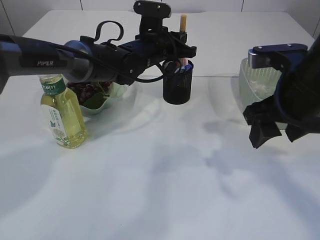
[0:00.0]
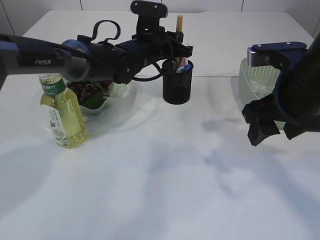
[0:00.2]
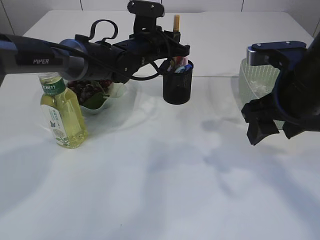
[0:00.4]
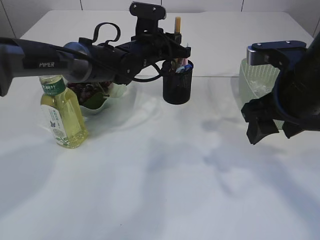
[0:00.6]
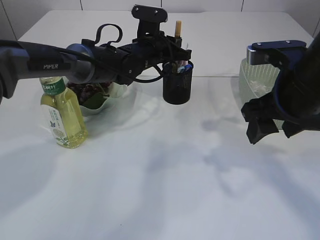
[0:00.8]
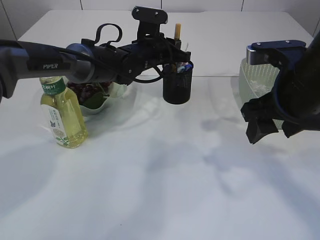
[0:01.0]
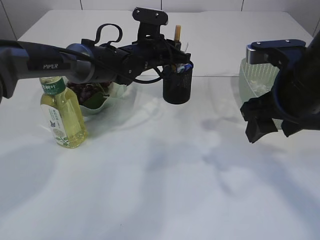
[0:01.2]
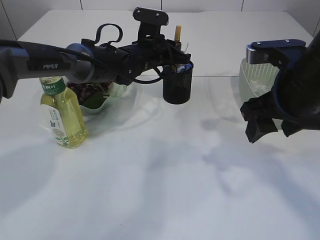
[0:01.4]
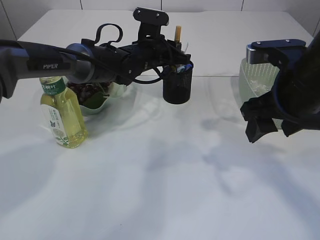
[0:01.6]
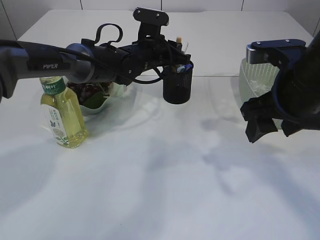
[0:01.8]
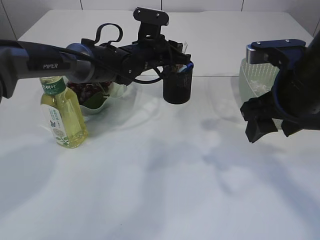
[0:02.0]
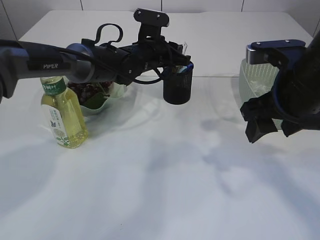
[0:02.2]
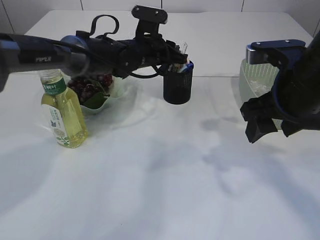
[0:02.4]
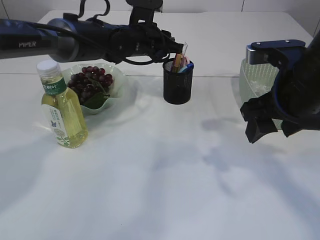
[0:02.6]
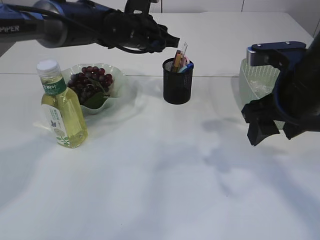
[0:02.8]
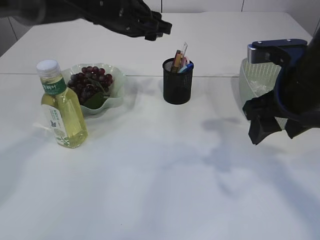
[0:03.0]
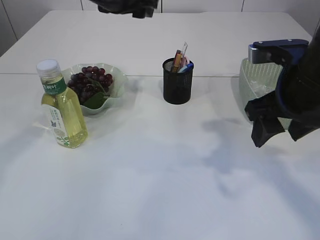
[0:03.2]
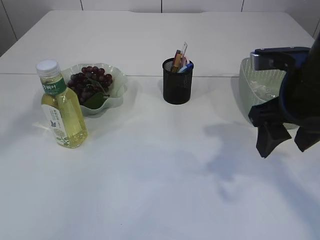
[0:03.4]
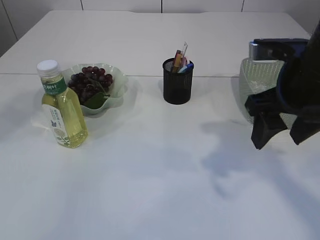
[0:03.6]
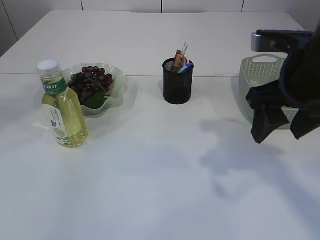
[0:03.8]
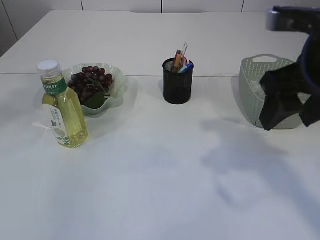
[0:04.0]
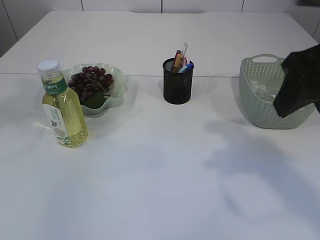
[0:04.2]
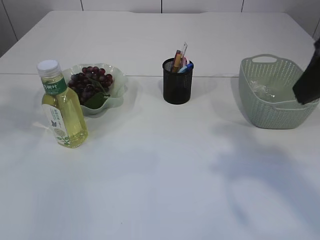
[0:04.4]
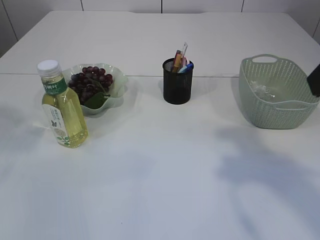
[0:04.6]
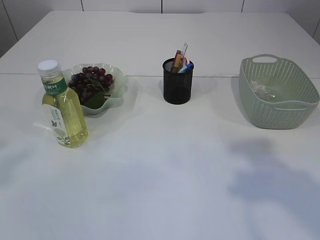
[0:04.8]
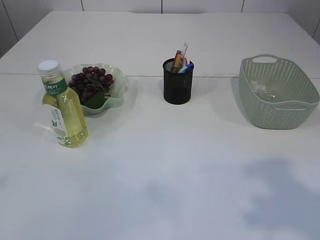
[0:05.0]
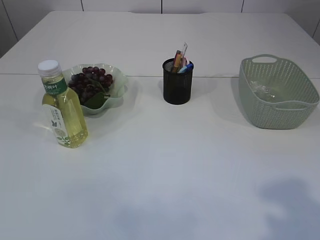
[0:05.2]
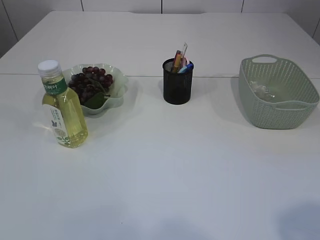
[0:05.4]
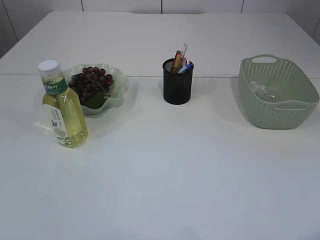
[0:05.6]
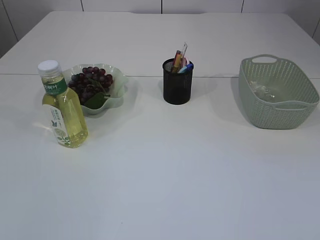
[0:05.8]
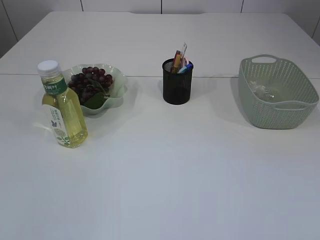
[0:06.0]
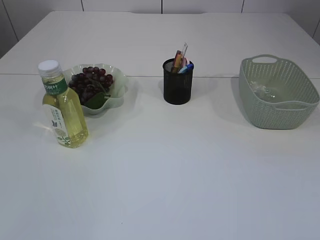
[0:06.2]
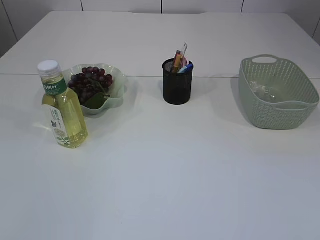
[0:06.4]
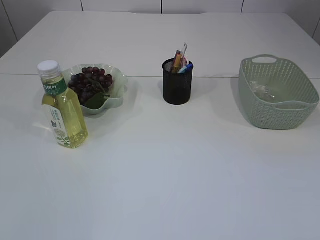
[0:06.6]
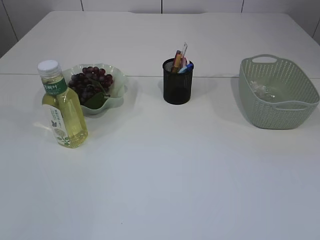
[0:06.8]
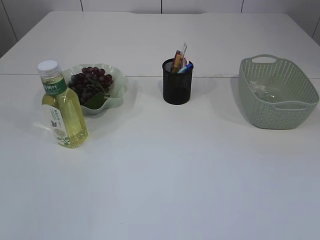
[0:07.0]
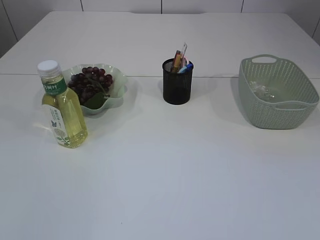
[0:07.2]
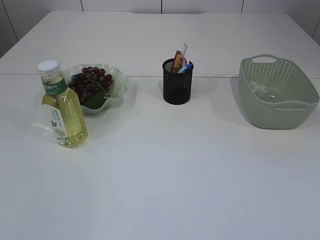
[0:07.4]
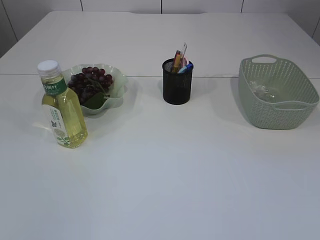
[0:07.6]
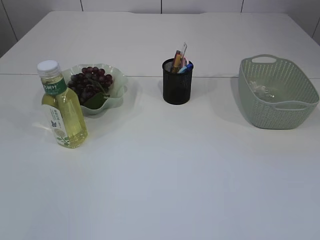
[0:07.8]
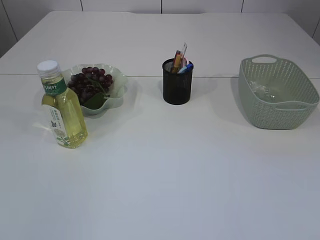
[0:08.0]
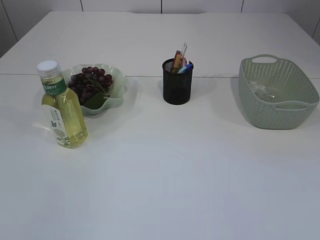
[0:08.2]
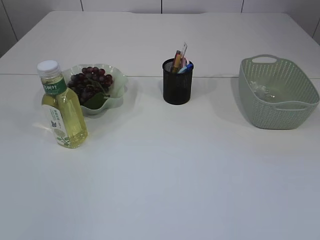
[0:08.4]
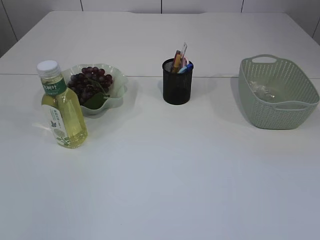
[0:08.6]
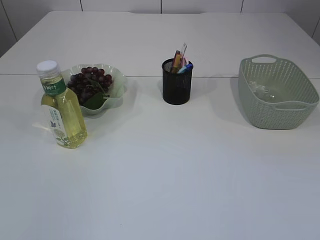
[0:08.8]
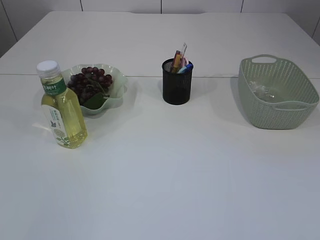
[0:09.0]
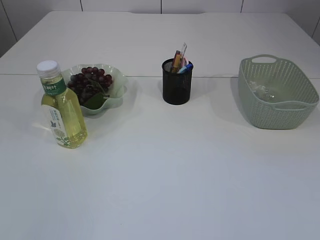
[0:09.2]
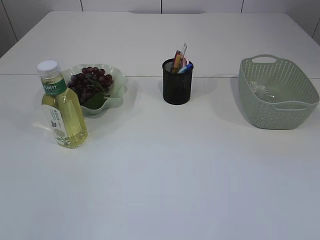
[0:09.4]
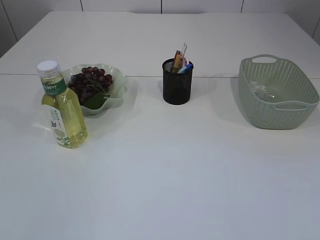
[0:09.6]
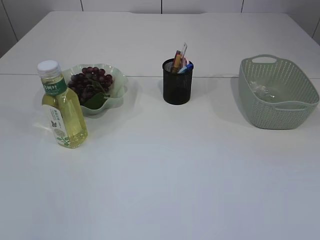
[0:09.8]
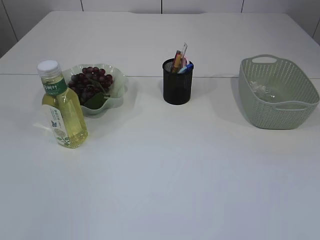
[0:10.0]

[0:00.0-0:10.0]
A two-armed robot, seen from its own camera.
Step, 0:00.0 to 0:02.6: place the yellow glue into the pen holder.
0:00.0 to 0:01.4: The grippers make only small movements.
0:01.4 to 0:02.8: The left gripper is displaced upward by roughly 5 cm.
0:02.8 to 0:04.2: The left gripper moves upward, backward and to the left, roughly 35 cm, and opens its fingers, while the right gripper travels upward and backward by approximately 10 cm.
0:04.2 to 0:05.8: The right gripper moves backward, approximately 25 cm.
0:08.6 to 0:10.0: Neither gripper changes place.

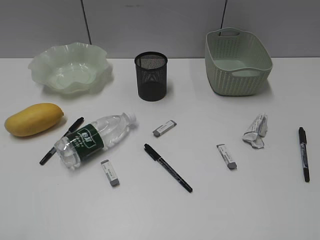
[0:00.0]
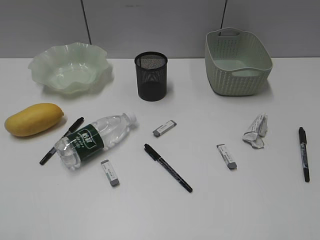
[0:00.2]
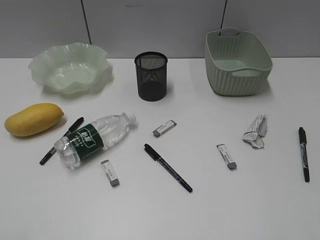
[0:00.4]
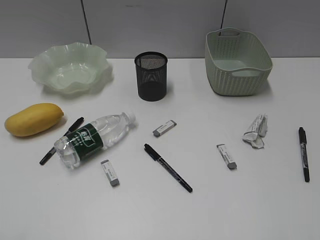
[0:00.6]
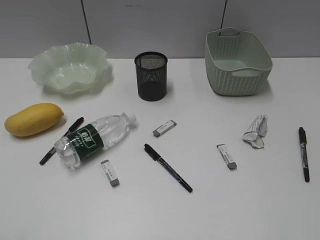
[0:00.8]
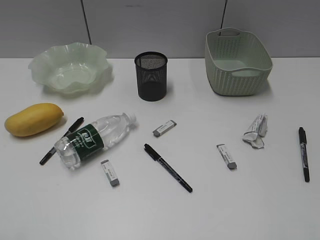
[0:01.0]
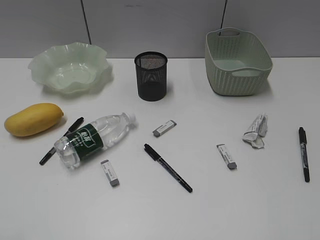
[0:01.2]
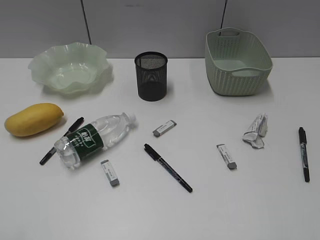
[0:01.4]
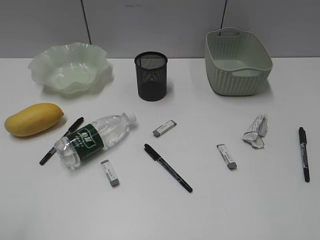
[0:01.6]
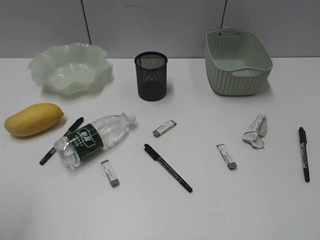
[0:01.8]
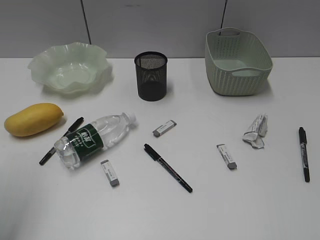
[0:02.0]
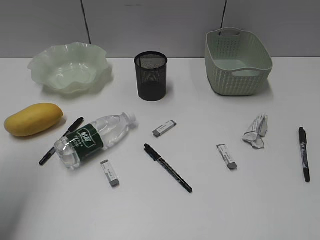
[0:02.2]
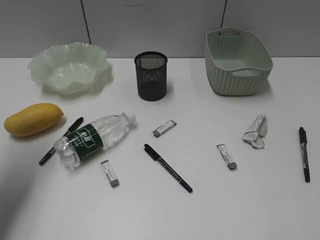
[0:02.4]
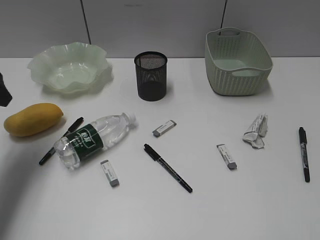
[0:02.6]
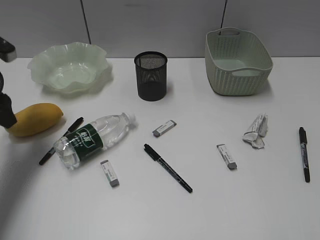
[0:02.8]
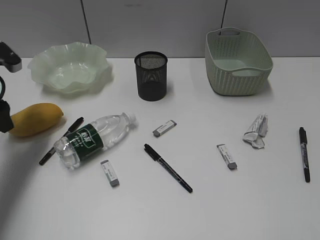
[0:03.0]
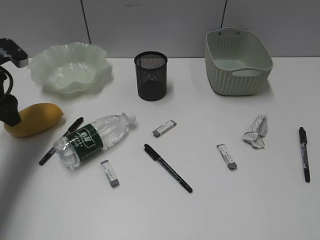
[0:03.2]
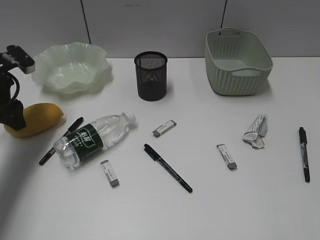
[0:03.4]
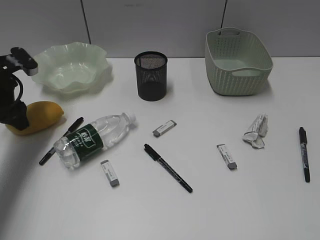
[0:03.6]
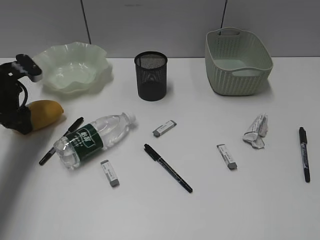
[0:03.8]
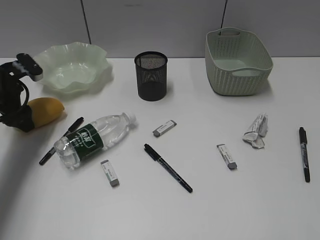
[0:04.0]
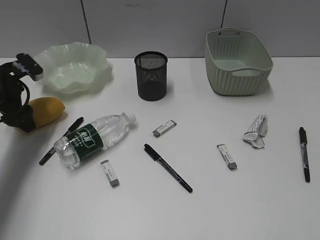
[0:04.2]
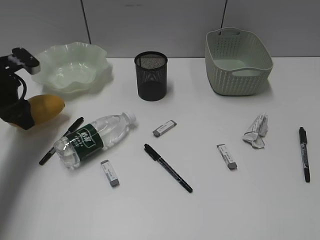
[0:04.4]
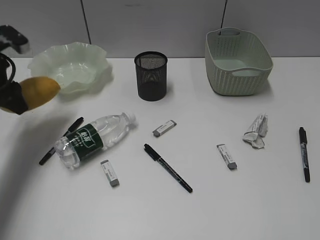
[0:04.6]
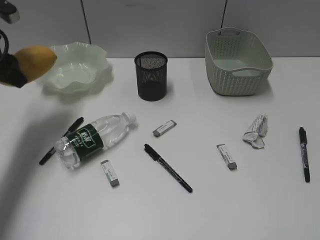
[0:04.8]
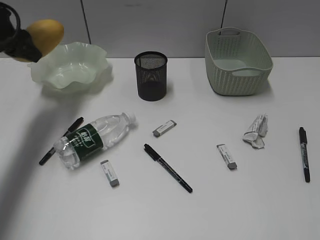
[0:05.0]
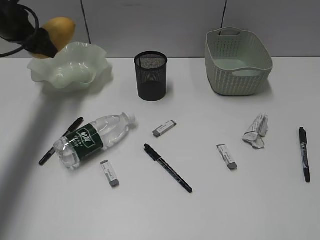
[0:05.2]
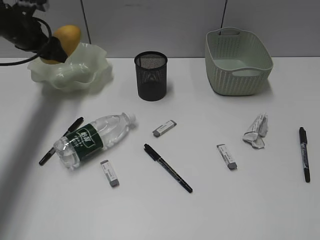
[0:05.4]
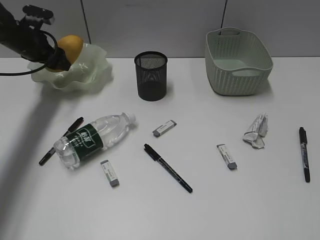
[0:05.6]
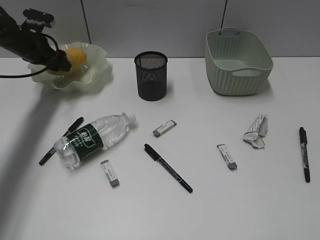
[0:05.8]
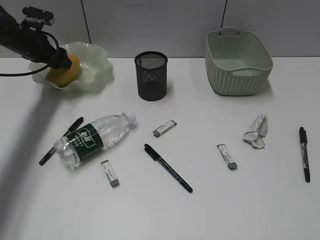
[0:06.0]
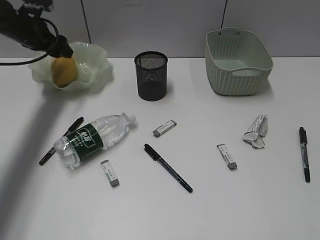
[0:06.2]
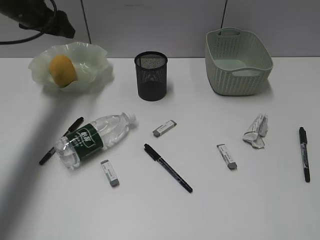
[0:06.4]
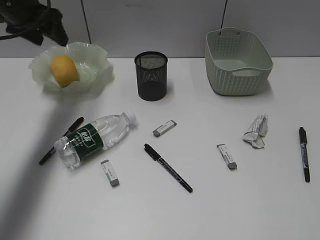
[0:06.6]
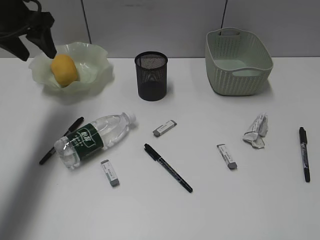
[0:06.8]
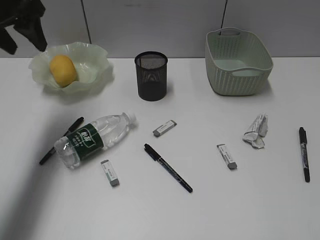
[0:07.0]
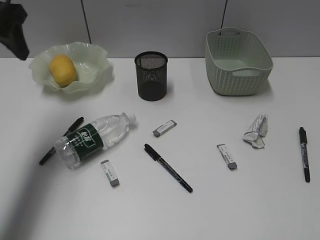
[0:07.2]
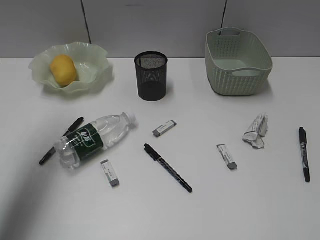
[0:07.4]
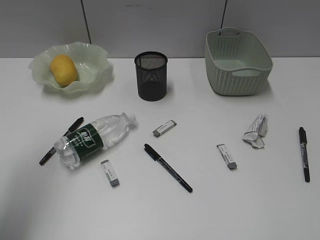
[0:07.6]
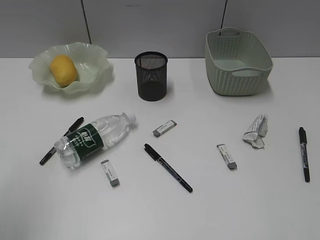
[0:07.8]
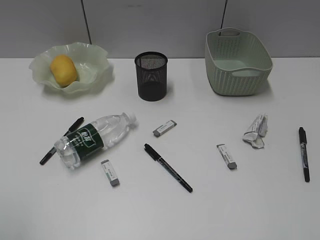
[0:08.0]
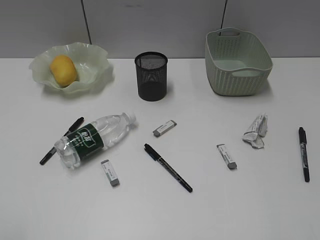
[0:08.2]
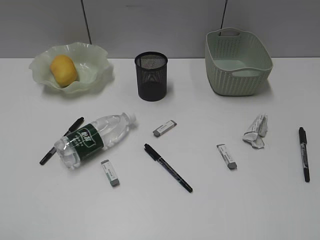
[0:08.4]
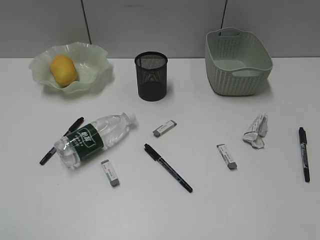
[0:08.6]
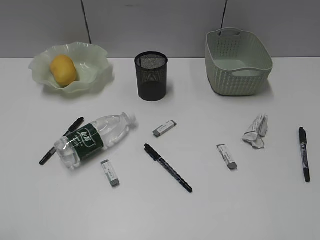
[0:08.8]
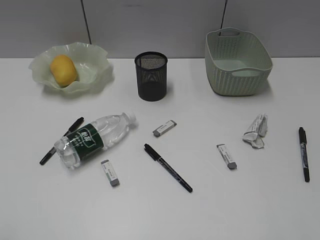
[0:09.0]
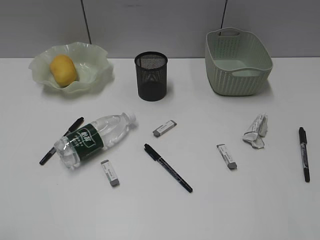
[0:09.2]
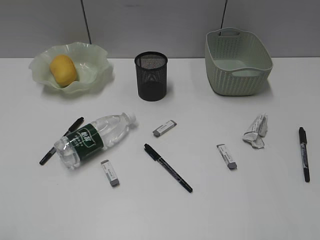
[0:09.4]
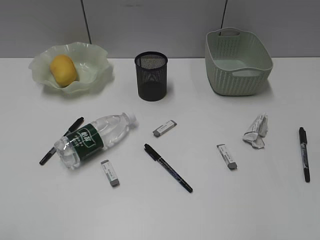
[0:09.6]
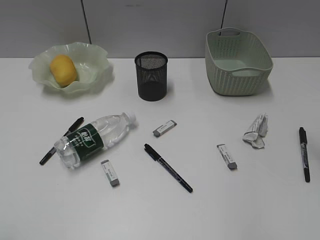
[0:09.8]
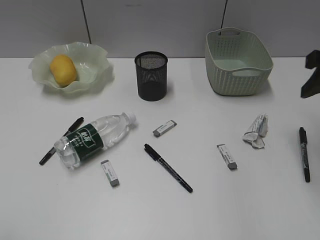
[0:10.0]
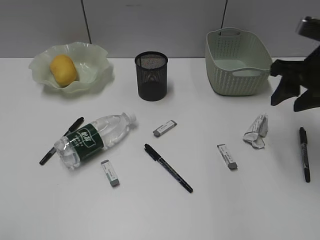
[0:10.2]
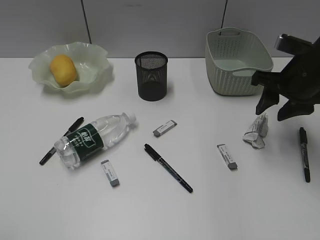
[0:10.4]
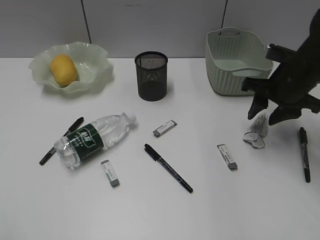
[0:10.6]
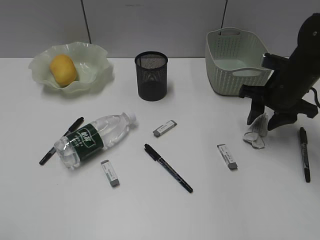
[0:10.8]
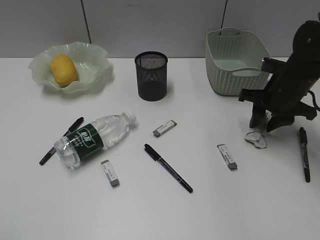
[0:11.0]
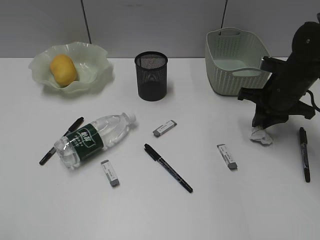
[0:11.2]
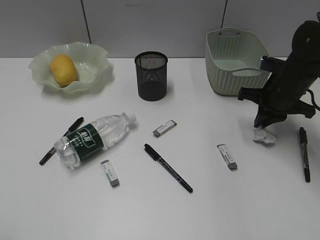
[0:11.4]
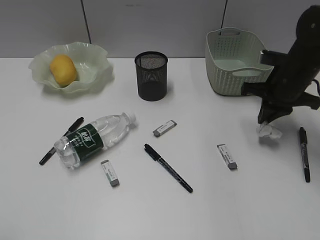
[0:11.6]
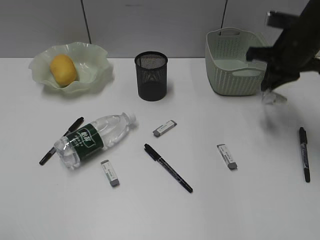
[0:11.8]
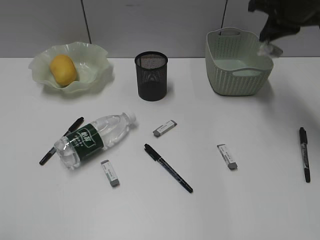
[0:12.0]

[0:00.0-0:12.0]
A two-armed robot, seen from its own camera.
Step, 0:02.6 to 0:04.2: Grasp the mango with left gripper.
Step, 0:04.4 to 0:06.2: Place the mango in the plate with left gripper.
Step, 0:06.4 to 0:11.4: Grasp the waste paper with right gripper.
0:01.6 to 0:03.0: The left gripper moves forward, approximately 30 cm.
0:04.4 to 0:06.0: The left gripper is displaced forward by some 15 cm.
0:06.0 to 0:07.6: The left gripper is displaced backward and upward by roughly 35 cm.
0:07.6 to 0:09.0: The left gripper shifts some 20 cm backward.
0:09.0 to 0:10.4: The right gripper shifts roughly 35 cm forward.
0:10.4 to 0:12.0: The right gripper travels upward and forward by about 15 cm, and closes.
